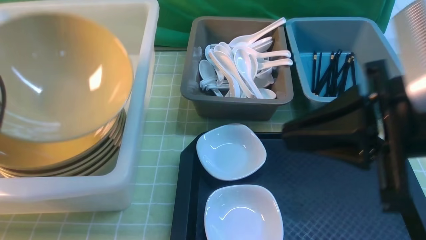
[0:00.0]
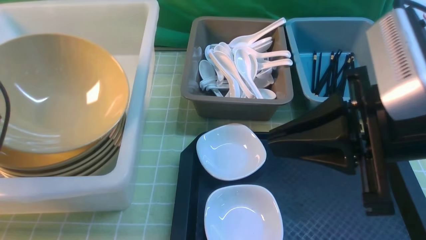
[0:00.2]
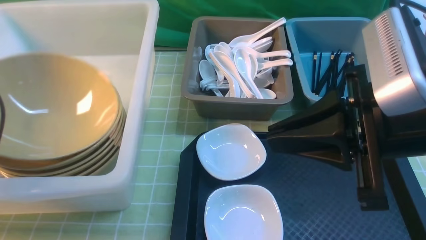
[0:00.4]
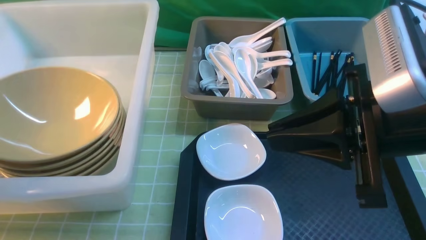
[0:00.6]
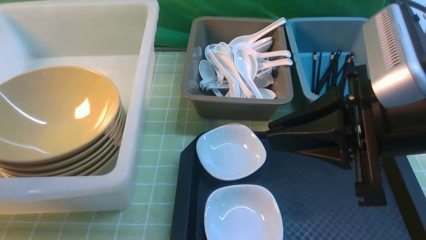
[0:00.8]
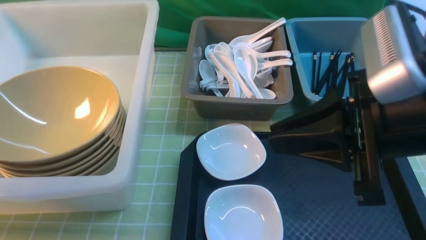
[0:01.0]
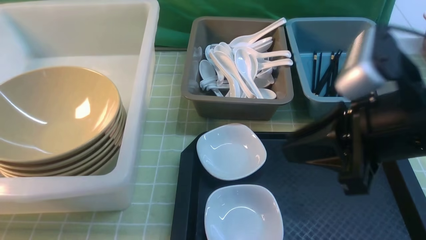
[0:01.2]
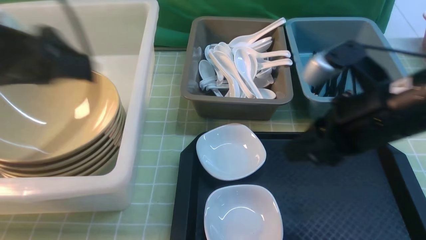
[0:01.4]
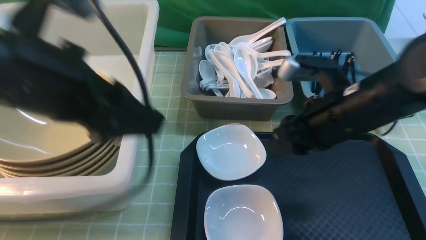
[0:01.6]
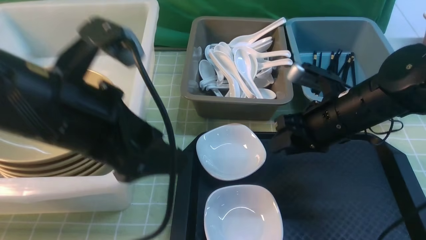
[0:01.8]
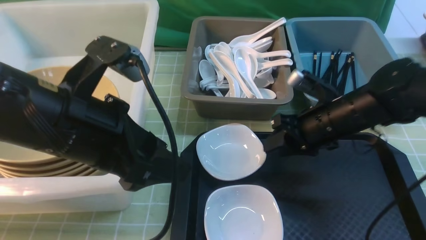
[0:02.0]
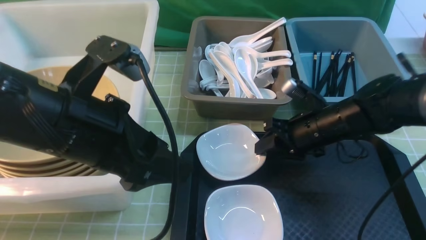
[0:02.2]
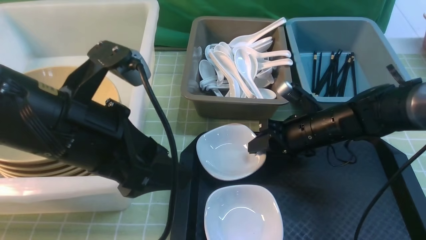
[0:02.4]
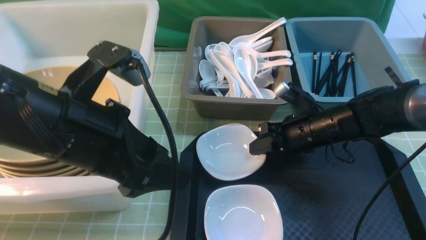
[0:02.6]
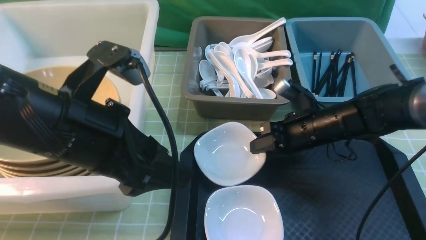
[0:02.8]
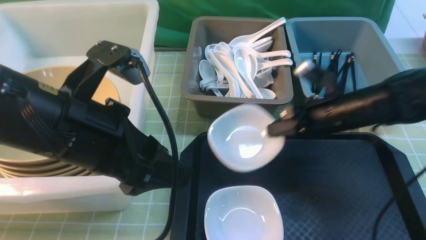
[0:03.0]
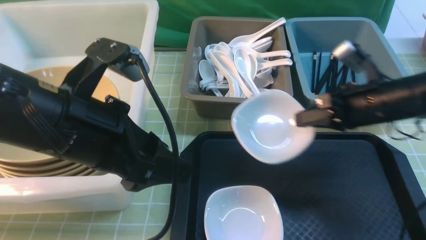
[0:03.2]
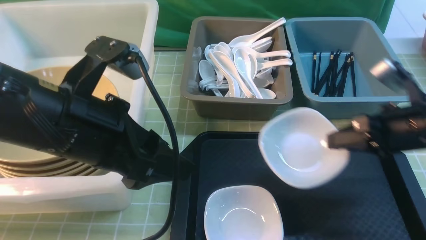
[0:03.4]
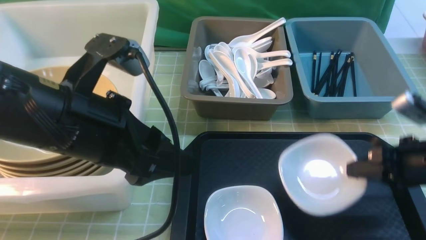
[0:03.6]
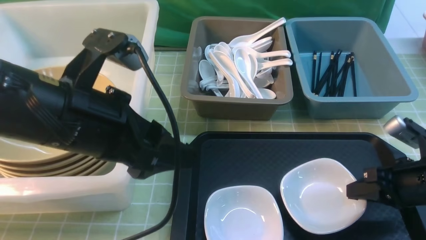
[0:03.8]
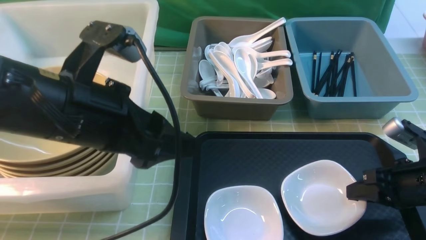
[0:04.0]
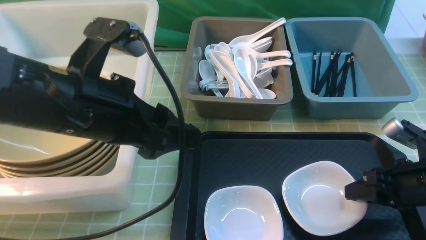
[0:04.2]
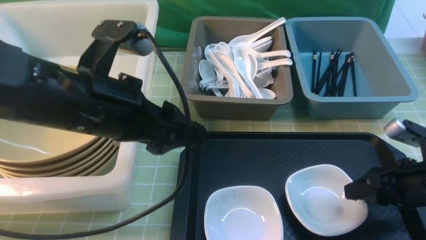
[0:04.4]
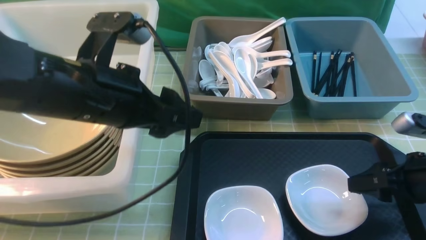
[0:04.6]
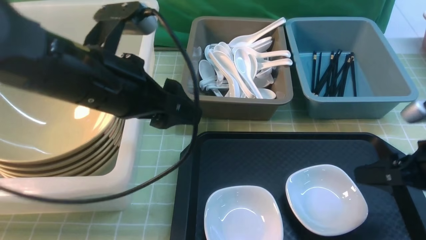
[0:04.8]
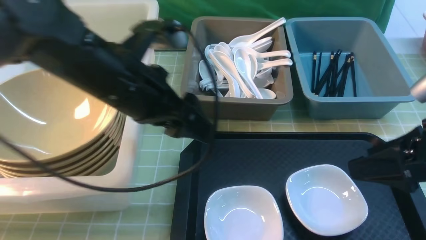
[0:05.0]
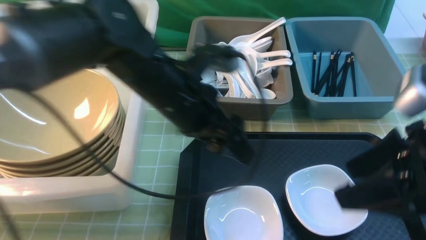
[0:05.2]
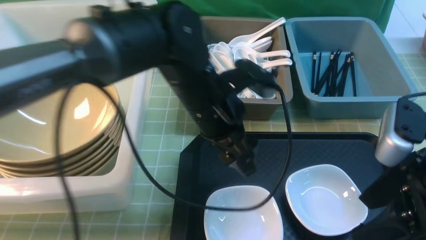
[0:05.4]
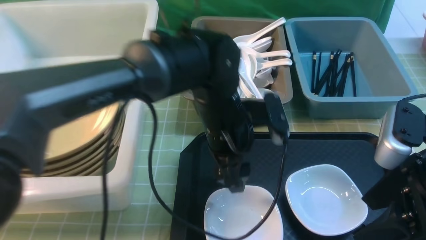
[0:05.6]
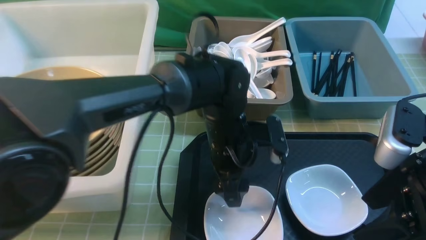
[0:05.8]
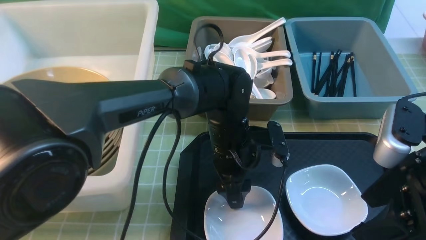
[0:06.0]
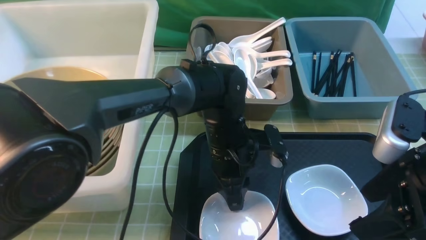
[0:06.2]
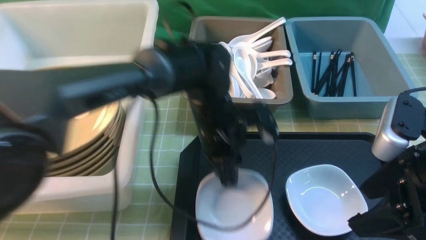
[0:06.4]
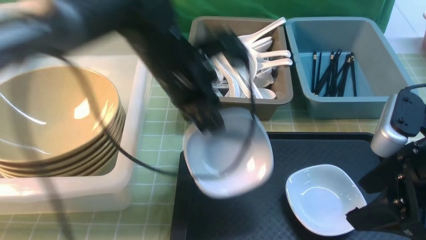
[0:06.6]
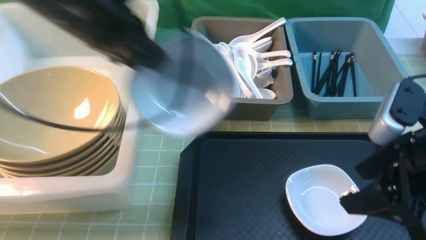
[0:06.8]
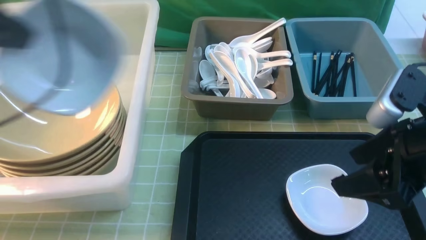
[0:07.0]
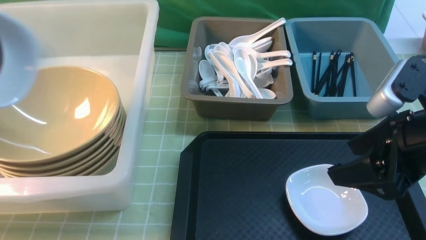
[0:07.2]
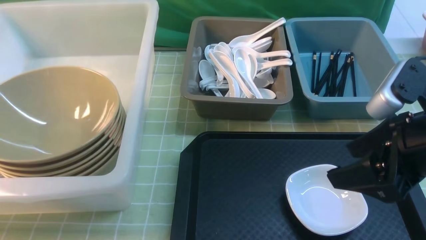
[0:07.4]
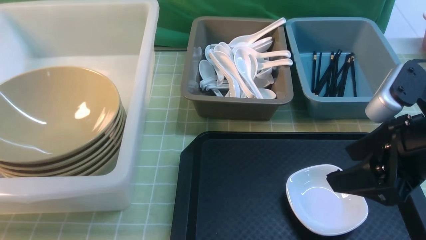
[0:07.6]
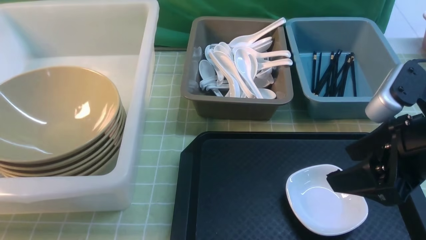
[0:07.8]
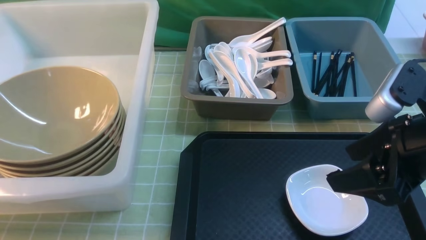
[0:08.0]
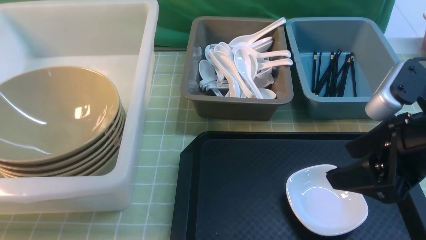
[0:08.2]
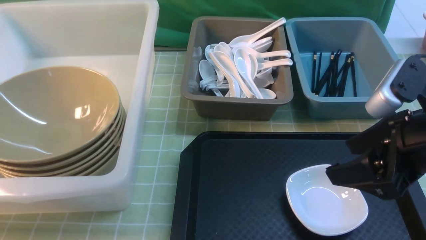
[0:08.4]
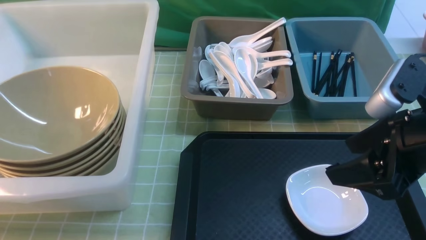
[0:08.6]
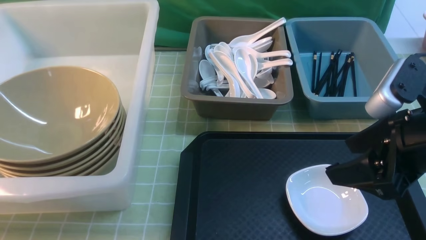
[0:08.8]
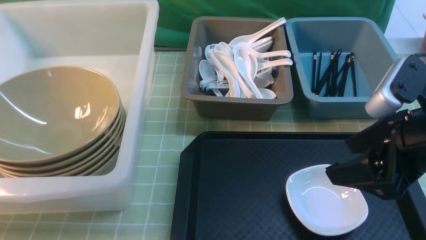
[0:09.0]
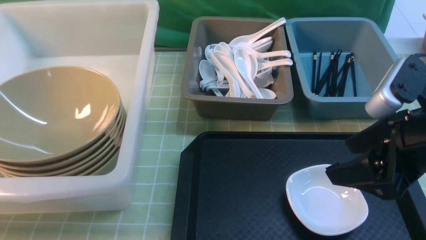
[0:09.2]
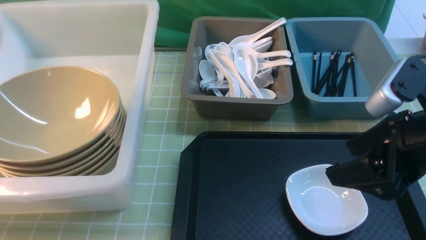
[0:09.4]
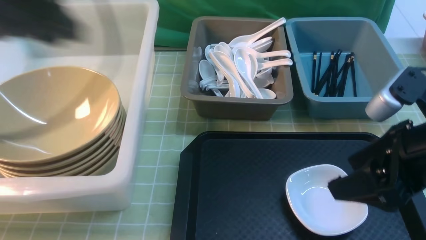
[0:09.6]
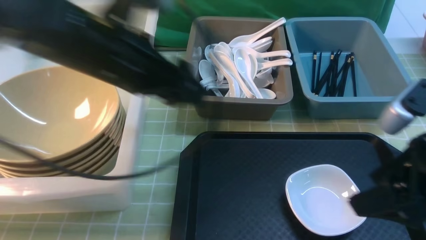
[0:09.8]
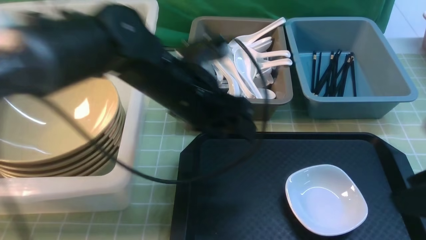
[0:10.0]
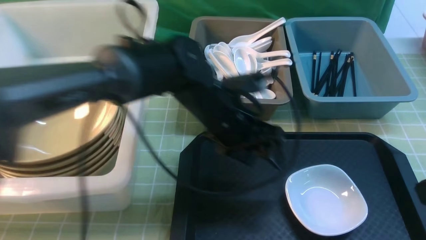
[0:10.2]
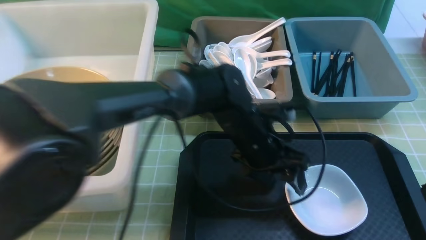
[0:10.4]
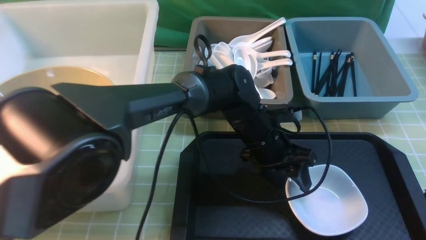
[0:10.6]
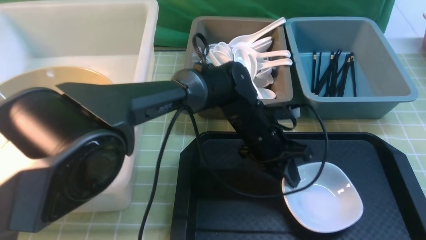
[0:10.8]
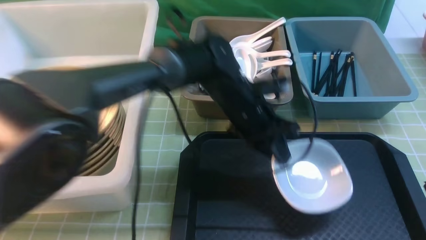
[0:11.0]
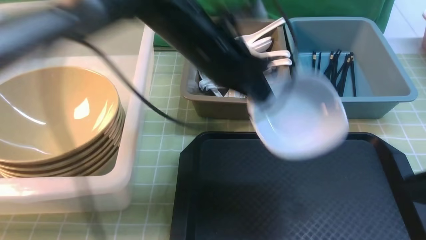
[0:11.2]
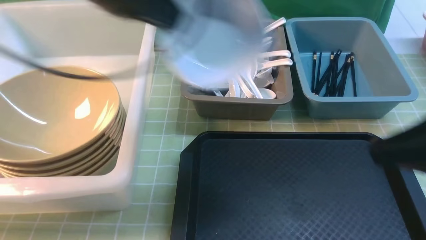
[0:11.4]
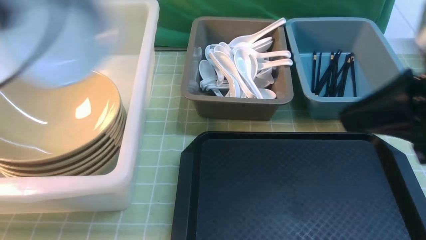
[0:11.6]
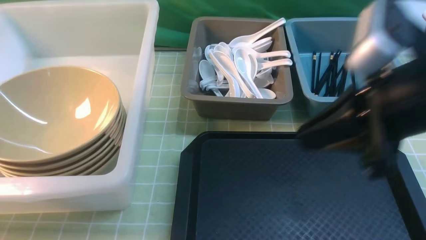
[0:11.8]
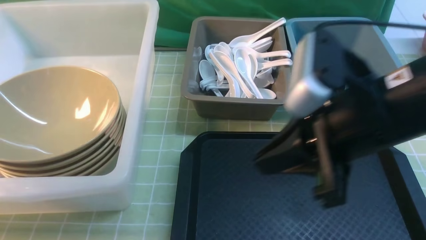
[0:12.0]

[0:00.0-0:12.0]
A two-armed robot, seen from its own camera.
Task of the whole recording: on green table put chopsticks spoon bowls plates into blue grey white boxes.
Step, 0.0 to 1.0 s: use the left arm to put the noodle bowl into the large storage box on the left.
Step, 1.4 to 3.0 s: use the right arm to grab the plate.
Step, 3.2 to 5.0 s: use the right arm to put the plate on the tray.
Step, 5.2 to 6.2 s: use the left arm to grab the plate.
Step, 6.6 to 8.2 s: use the left arm to put the plate into the large storage box on the left.
Step, 8.6 to 10.8 s: use the left arm to grab the plate.
0.0 to 1.6 s: The left gripper is displaced to the right by some 15 cm, and opens up. Meanwhile the right gripper moves forward and downward, about 15 cm, and opens its fingers.
1.6 to 3.0 s: The right gripper moves downward and forward, about 10 cm, and closes.
3.0 to 4.4 s: The right gripper travels backward and to the right by about 15 cm, and opens up.
4.4 to 6.0 s: The right gripper goes about 15 cm upward and to the left. The left gripper goes roughly 25 cm downward, to the right and forward, and closes up.
6.0 to 7.6 s: The left gripper heads to the left and upward, covering approximately 50 cm, and closes up.
7.6 to 9.0 s: The left gripper ends up approximately 5 cm from where it was, and opens its fingers.
9.0 to 10.4 s: The left gripper heads to the right, covering about 50 cm. The right gripper heads backward, covering roughly 10 cm, and closes.
10.4 to 12.0 s: The right gripper travels to the left and forward by roughly 15 cm. The left gripper is displaced to the left and upward by some 50 cm, and closes up.

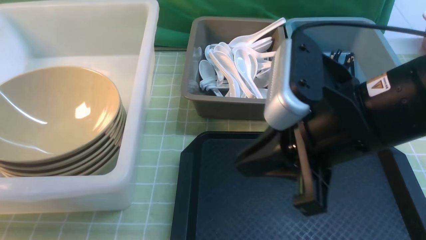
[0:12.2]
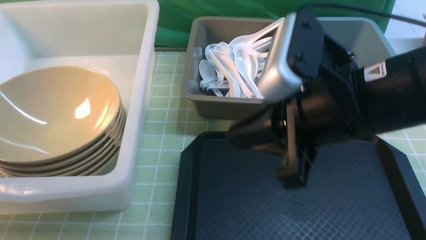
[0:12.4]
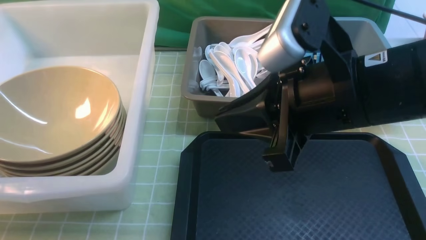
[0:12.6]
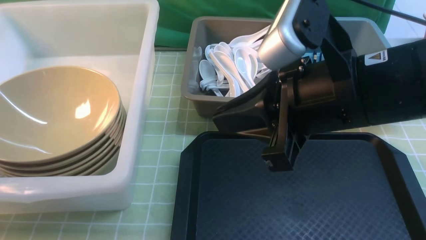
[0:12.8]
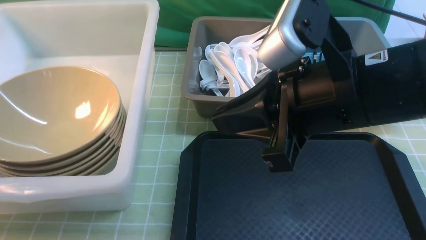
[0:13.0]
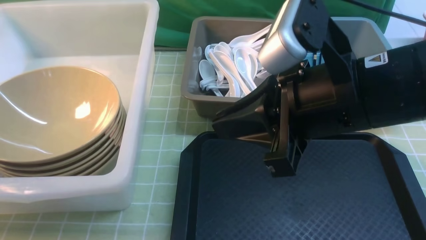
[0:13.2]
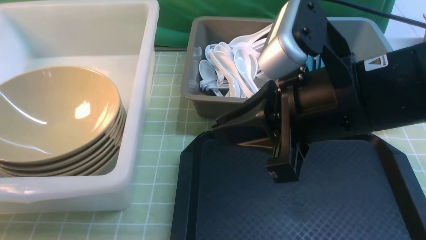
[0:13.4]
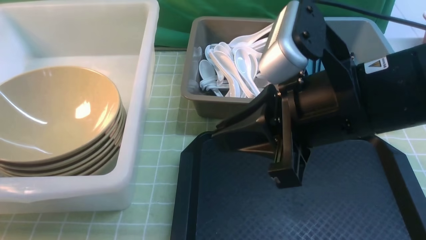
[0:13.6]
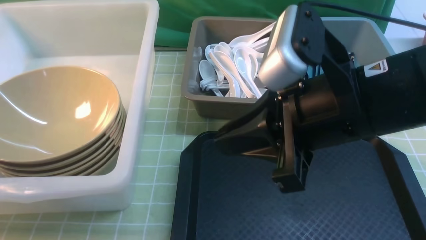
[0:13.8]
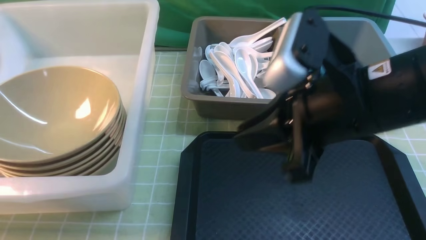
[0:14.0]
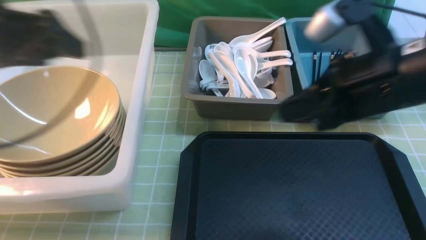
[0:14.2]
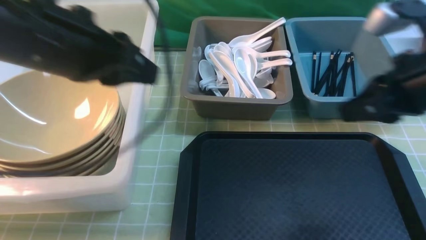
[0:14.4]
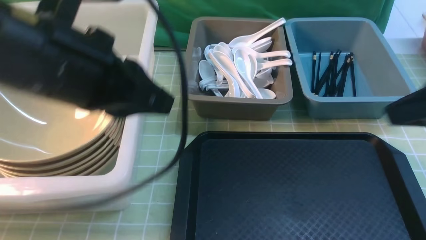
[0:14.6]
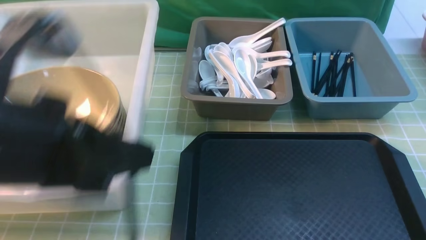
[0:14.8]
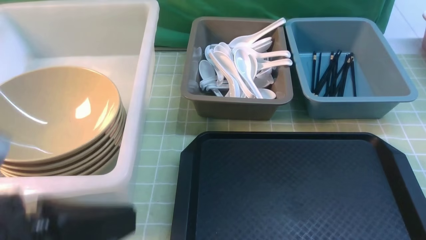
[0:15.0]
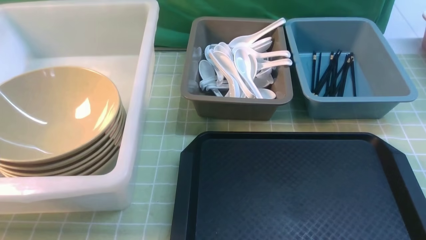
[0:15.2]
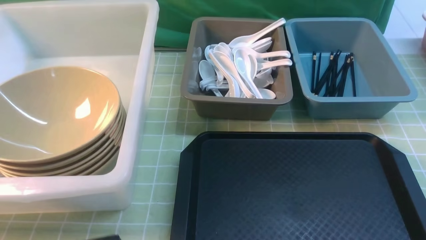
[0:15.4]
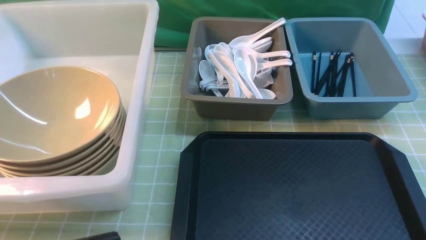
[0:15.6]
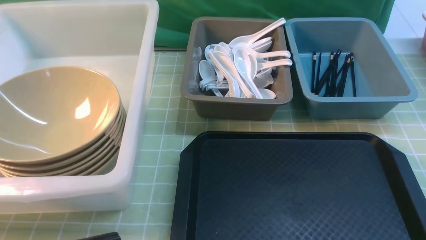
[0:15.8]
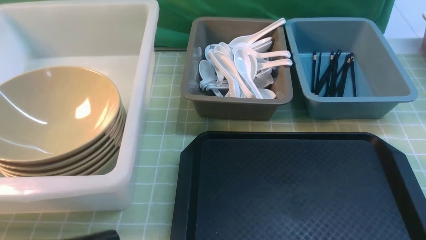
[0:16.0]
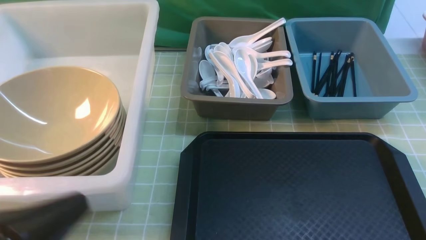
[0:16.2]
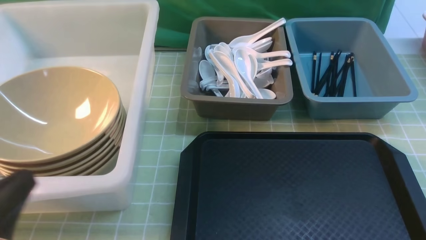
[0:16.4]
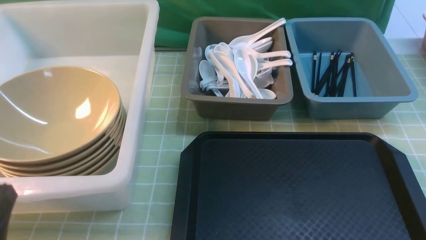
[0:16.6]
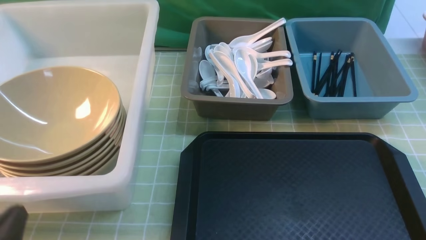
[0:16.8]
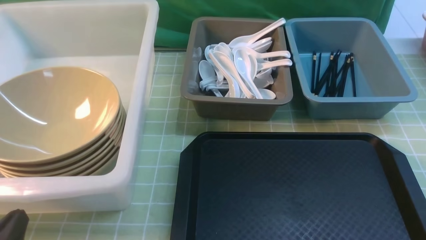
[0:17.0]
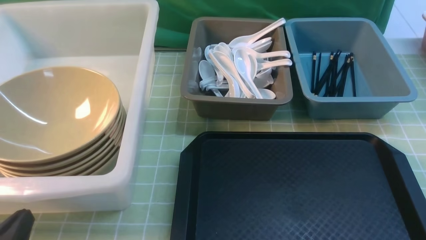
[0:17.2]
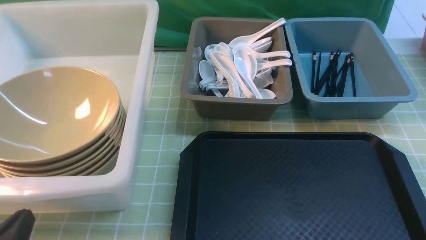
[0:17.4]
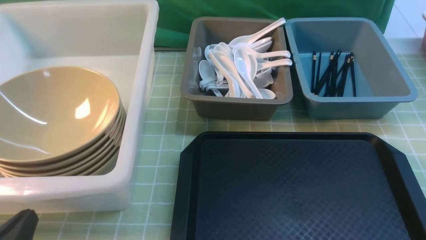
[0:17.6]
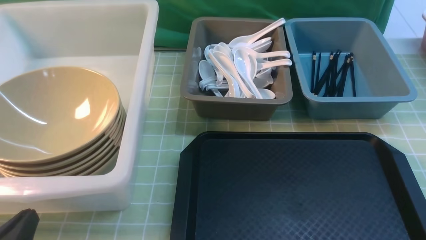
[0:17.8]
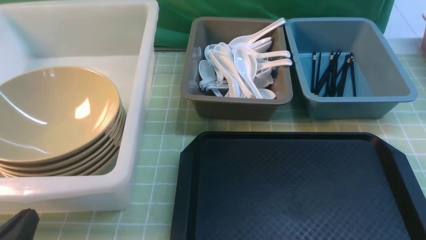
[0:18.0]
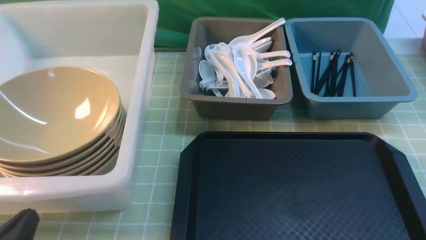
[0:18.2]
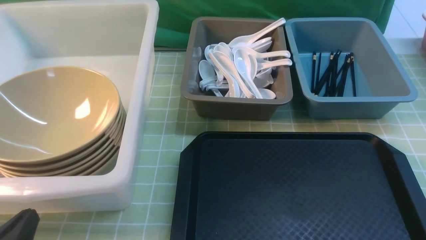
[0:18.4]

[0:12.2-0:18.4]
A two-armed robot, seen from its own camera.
Task of the whole recording: on green table put chopsticks spoon bowls plates into blue grey white boxes.
Step, 12.2 to 14.0 s: use the left arm to put the plate into the large storage box on the left.
12.2 to 13.8 s: The left gripper moves downward and forward, roughly 10 cm, and opens its fingers.
13.8 to 15.4 s: The two grippers go roughly 30 cm backward and to the right. The left gripper closes its fingers.
15.4 to 16.8 s: The left gripper goes approximately 10 cm downward and to the left.
